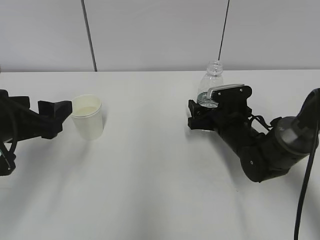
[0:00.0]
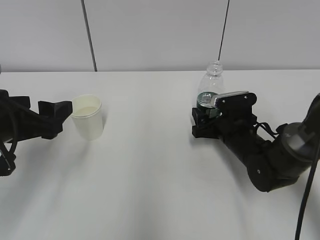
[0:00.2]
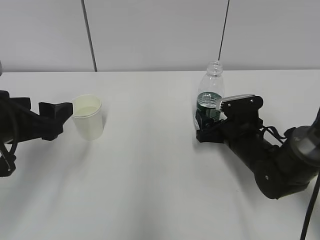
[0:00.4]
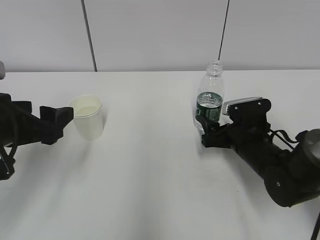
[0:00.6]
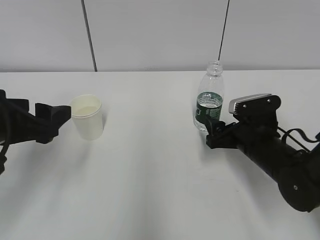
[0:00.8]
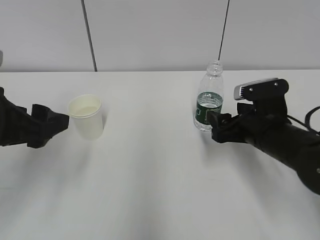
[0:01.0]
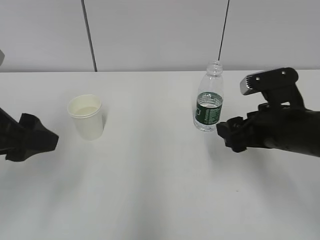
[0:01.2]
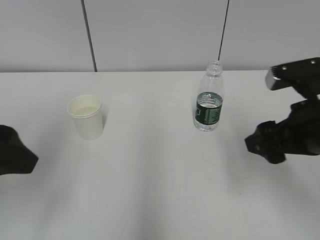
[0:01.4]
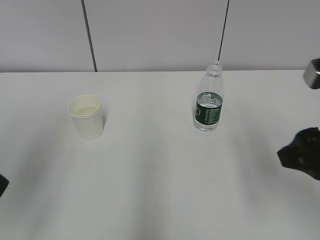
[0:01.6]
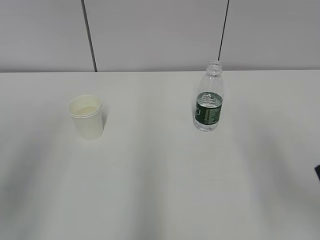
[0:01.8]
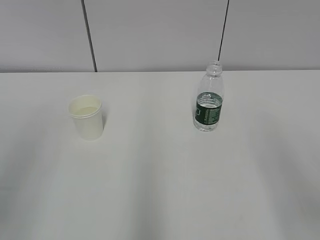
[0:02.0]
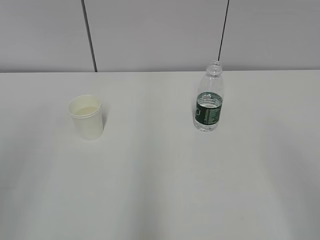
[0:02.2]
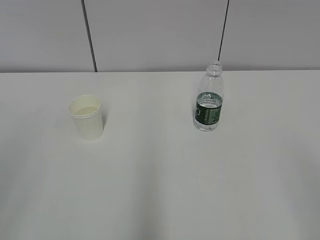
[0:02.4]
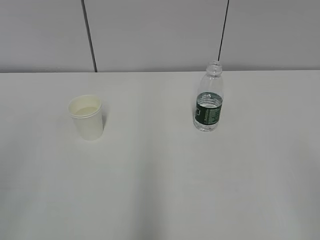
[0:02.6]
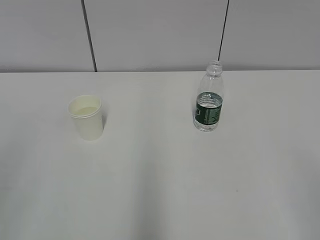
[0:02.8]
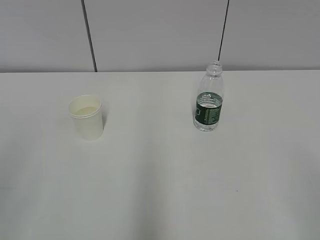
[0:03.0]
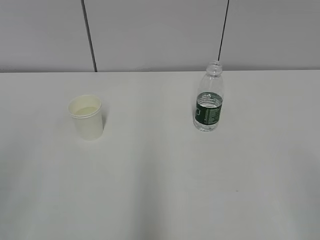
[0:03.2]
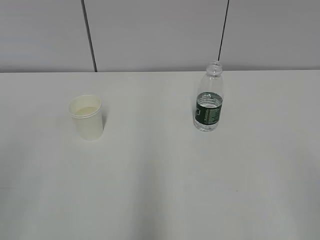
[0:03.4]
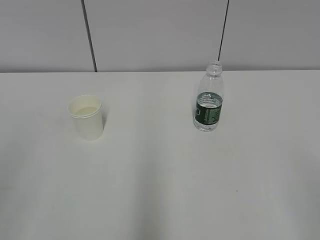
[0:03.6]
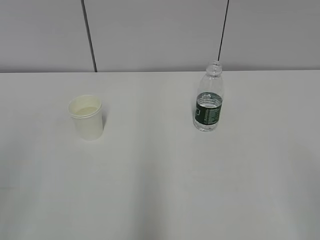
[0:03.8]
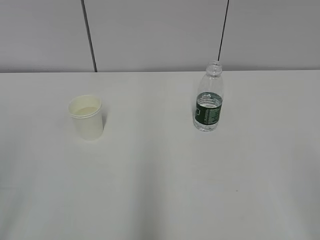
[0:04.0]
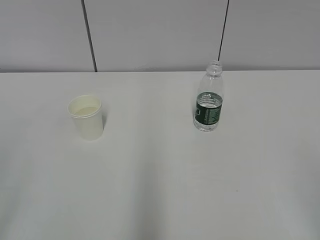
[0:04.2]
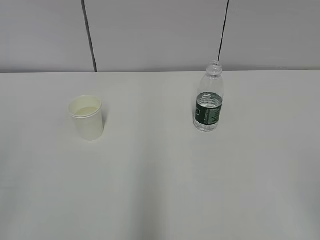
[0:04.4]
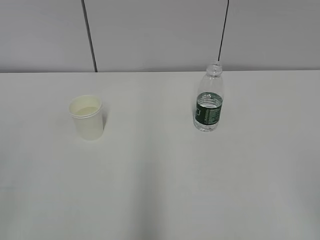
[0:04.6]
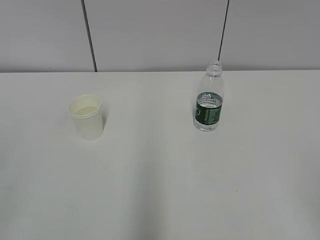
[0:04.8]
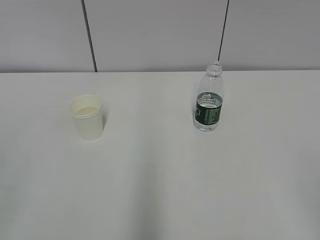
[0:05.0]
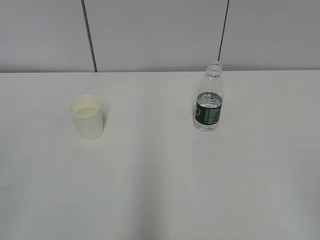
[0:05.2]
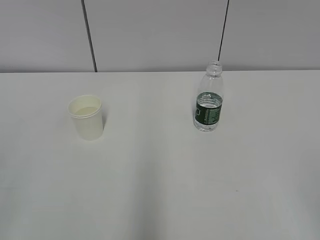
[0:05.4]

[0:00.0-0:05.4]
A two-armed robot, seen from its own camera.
0:00.0 to 0:01.4: The right gripper goes some 25 cm upward and backward, while the left gripper shifts about 10 cm upward and backward.
0:01.4 to 0:02.8: The left gripper heads backward and to the left, covering some 15 cm; the right gripper travels backward by some 20 cm.
